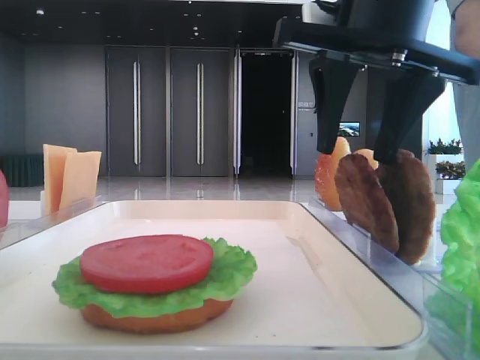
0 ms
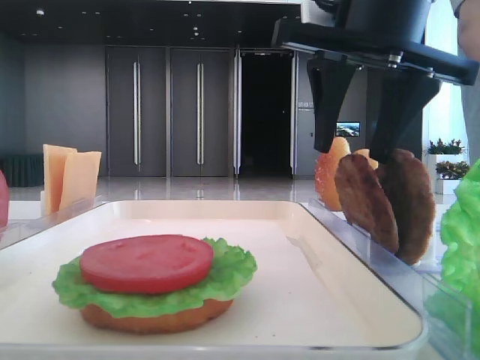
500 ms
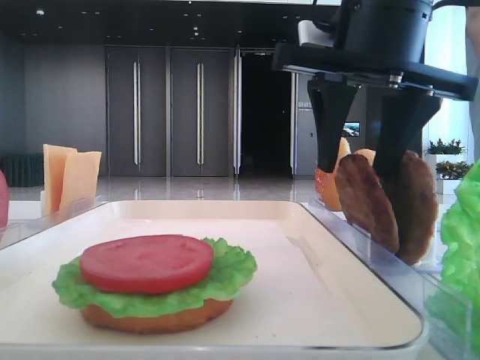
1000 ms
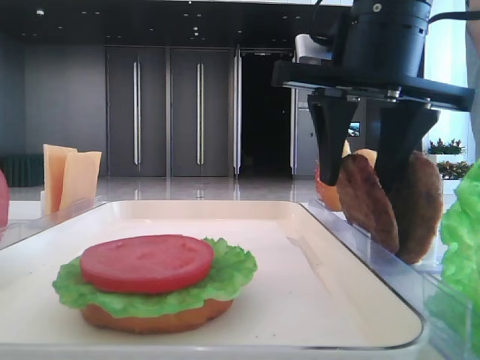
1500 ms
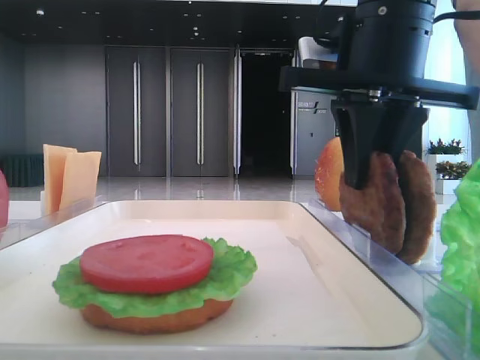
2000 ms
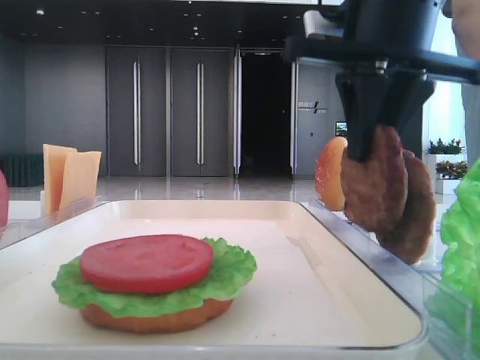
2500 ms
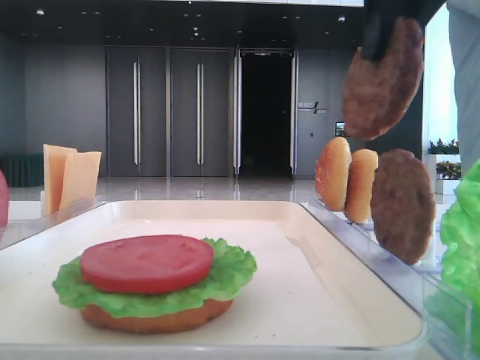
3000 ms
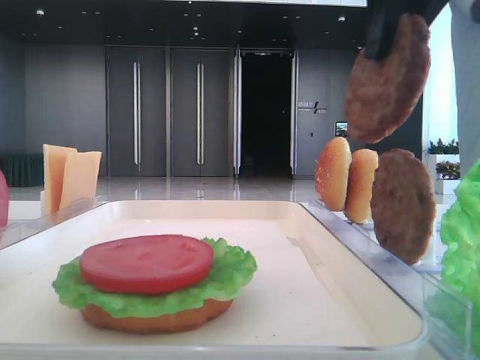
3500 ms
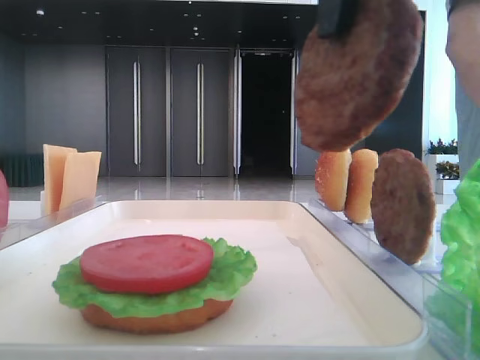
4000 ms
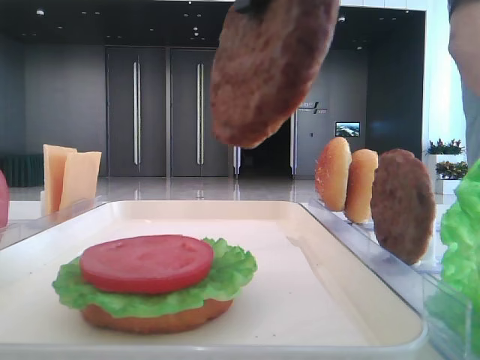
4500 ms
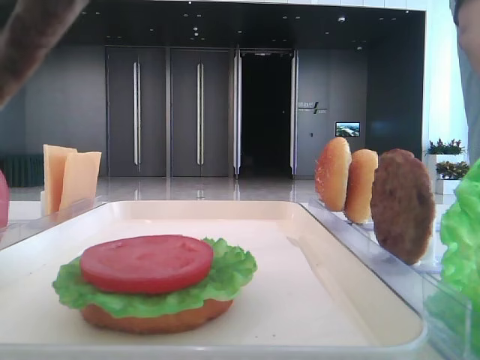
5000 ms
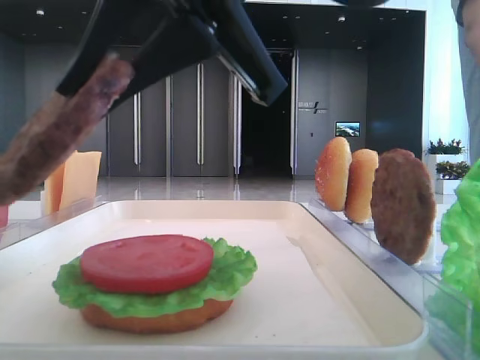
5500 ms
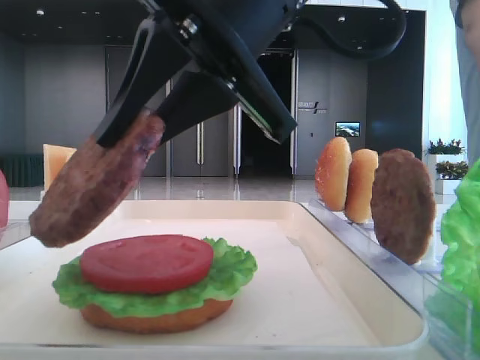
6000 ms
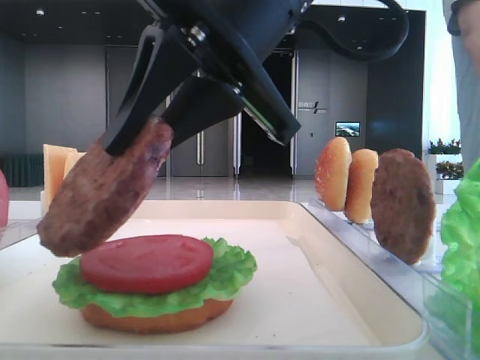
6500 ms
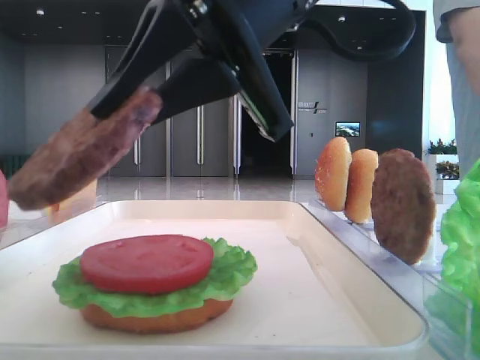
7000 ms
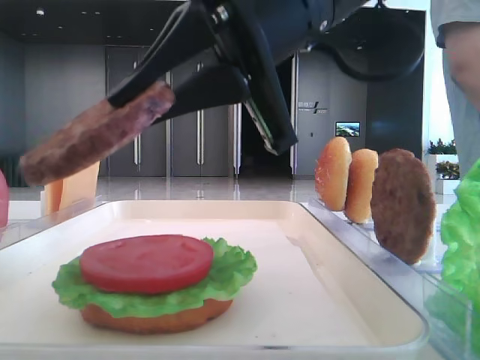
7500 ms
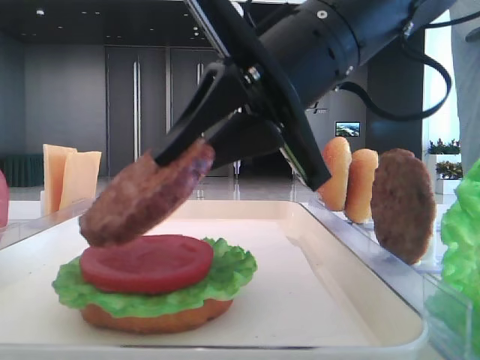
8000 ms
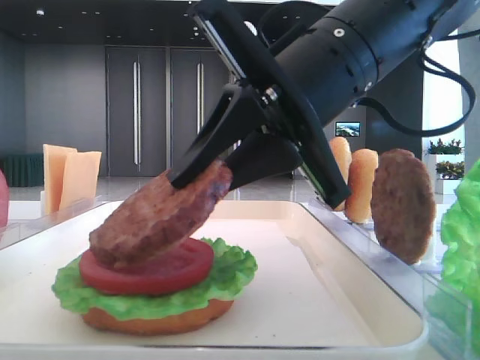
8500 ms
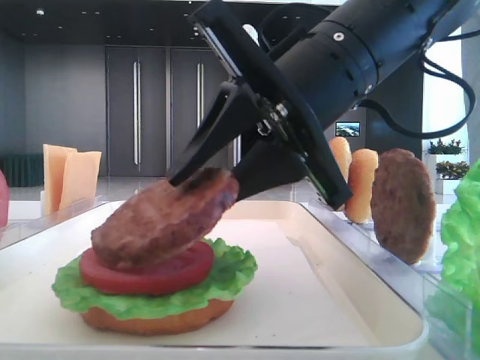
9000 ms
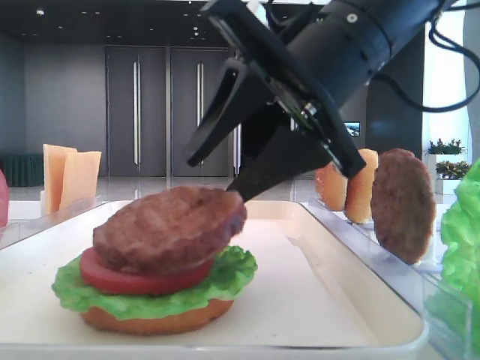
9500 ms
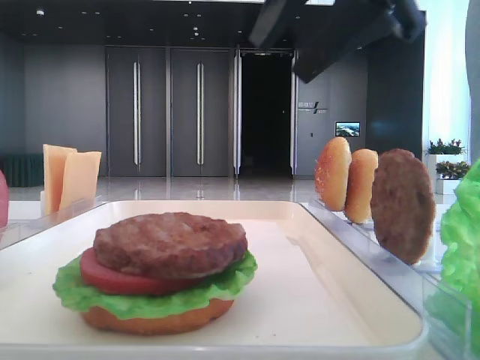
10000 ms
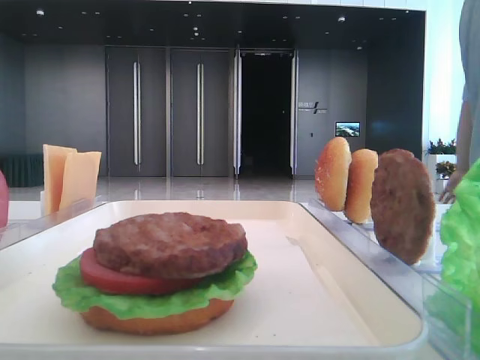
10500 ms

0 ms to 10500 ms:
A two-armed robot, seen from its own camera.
Step, 0 ms to 2000 ms: Grab the patty with the right hand.
Step, 2500 ms to 9500 ms: Place the patty on the tomato slice with the right hand.
0 ms to 2000 ms: The right gripper closes.
2000 ms to 4000 ms: The right gripper is displaced backward and upward by roughly 15 cm.
4000 ms to 6500 ms: The right gripper moves downward and to the left, about 10 cm.
6500 ms to 8500 ms: The right gripper shifts by some 5 cm.
8500 ms to 10500 ms: The right gripper is displaced to the right and upward by approximately 20 cm, and opens.

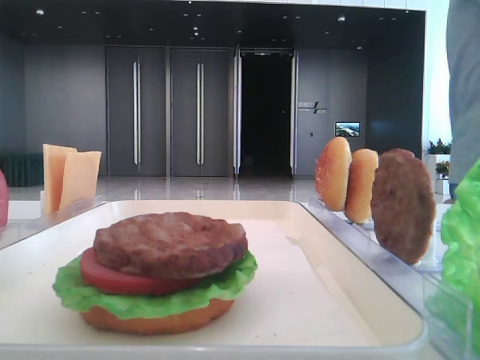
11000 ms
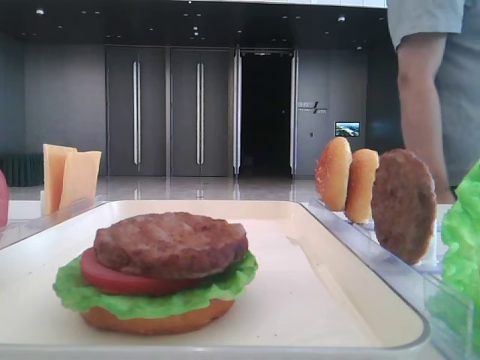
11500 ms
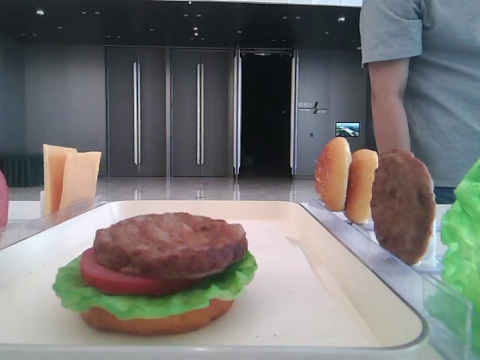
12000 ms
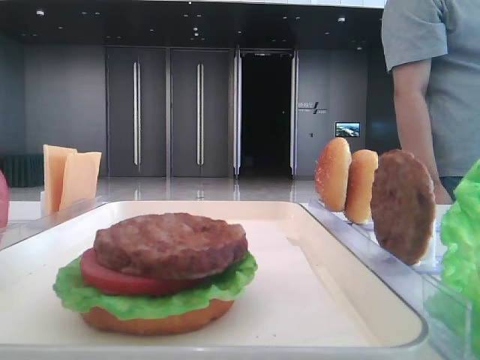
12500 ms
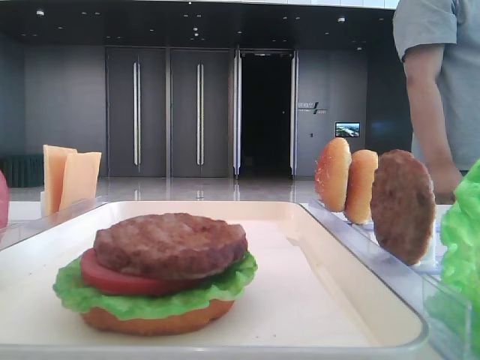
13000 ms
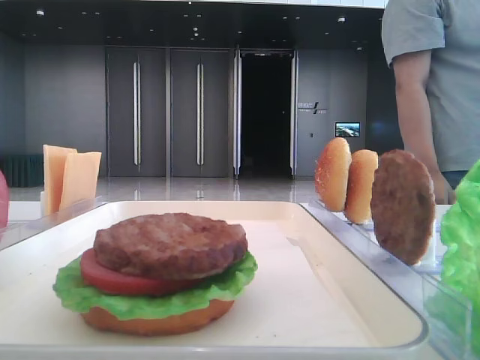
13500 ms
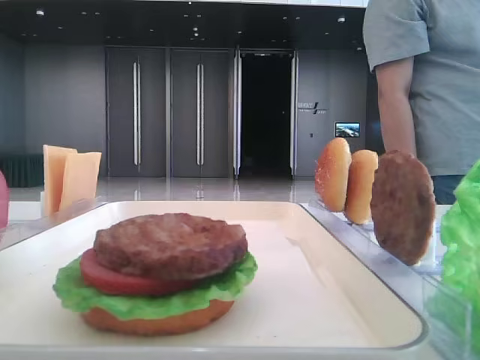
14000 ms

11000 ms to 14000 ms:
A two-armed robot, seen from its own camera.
11000 ms to 12500 ms: The right gripper heads backward, covering approximately 15 cm.
12500 ms to 14000 ms: The right gripper heads backward, covering roughly 5 cm.

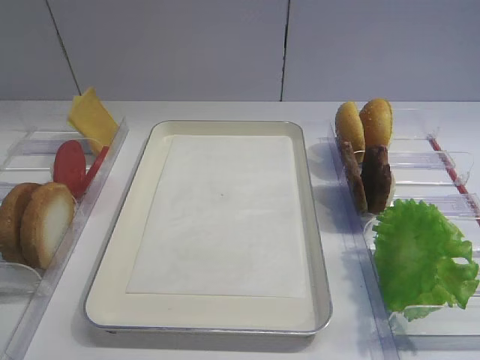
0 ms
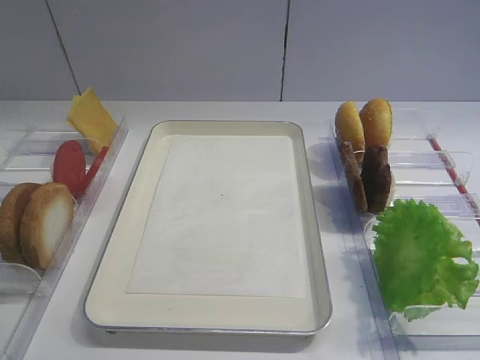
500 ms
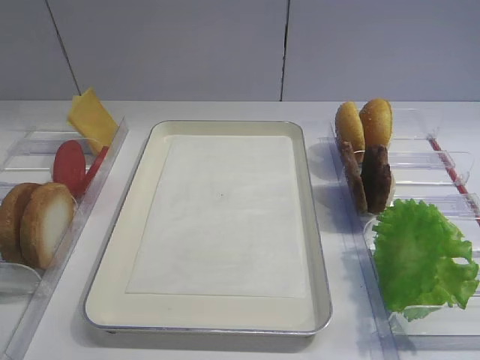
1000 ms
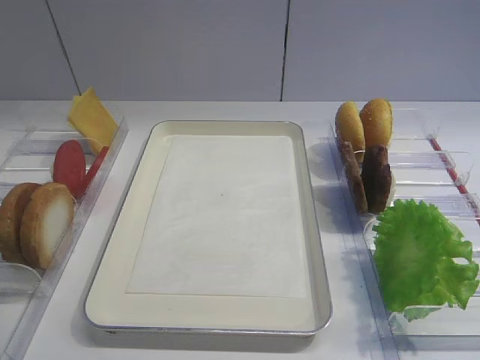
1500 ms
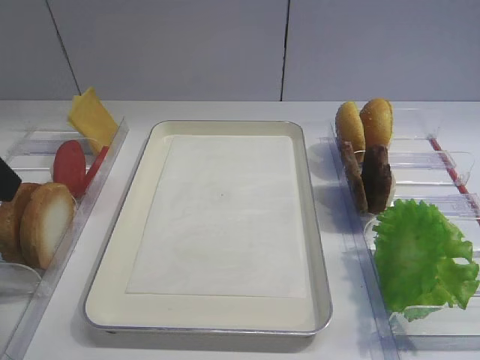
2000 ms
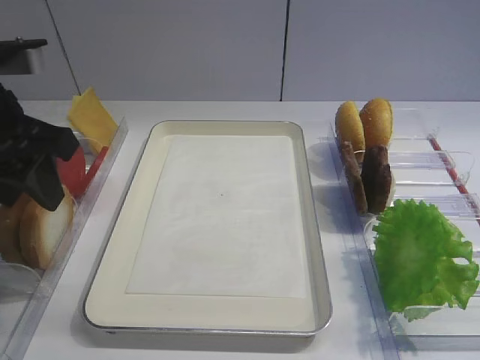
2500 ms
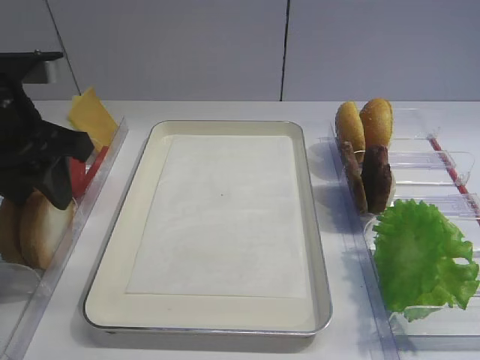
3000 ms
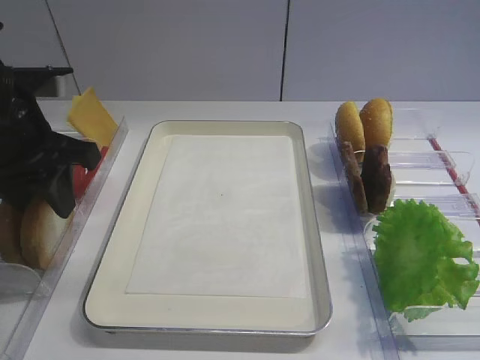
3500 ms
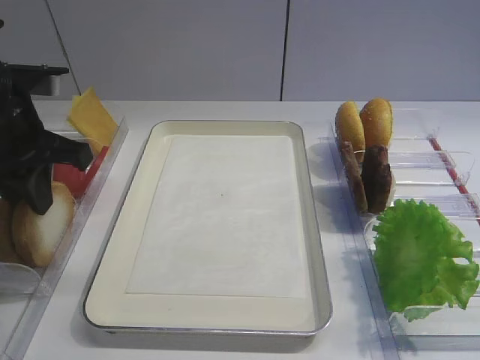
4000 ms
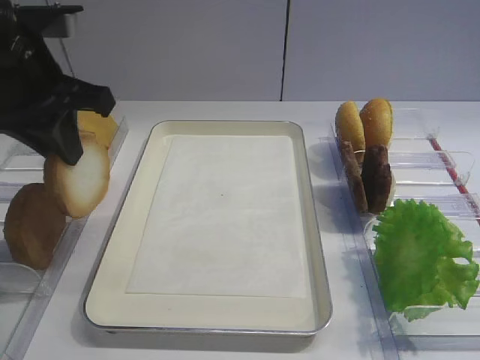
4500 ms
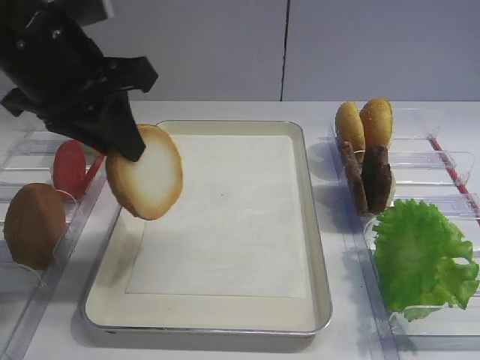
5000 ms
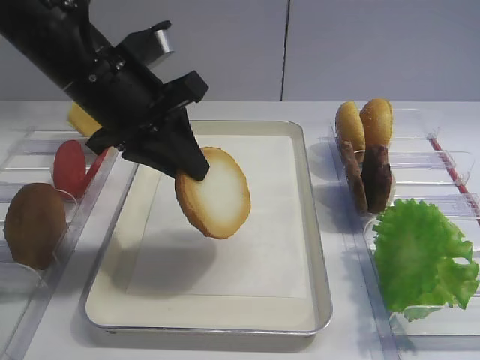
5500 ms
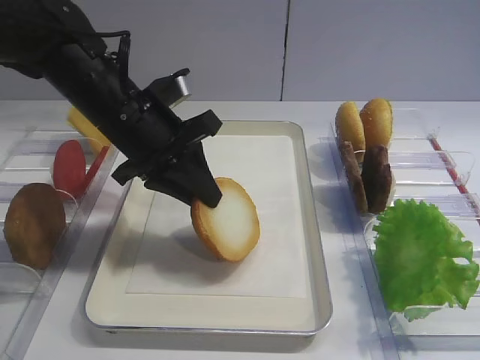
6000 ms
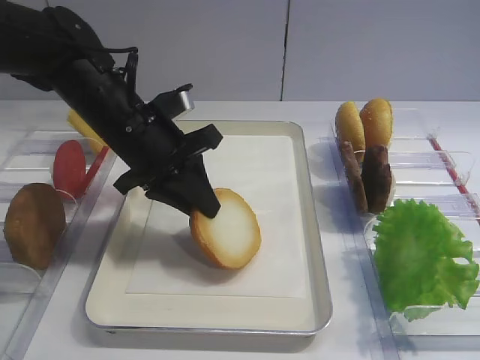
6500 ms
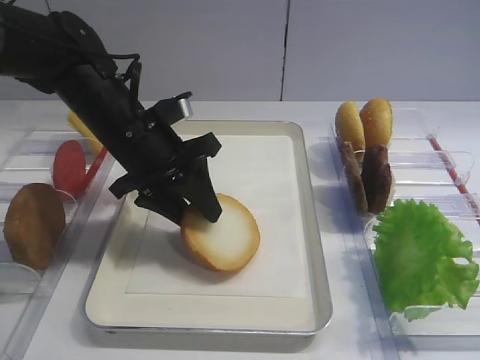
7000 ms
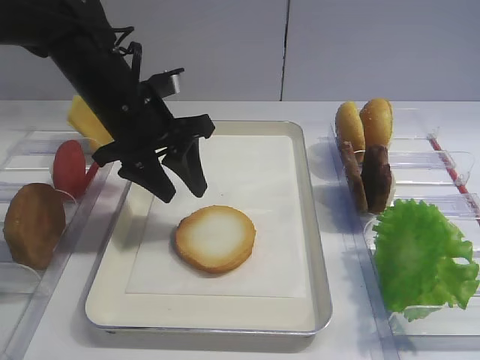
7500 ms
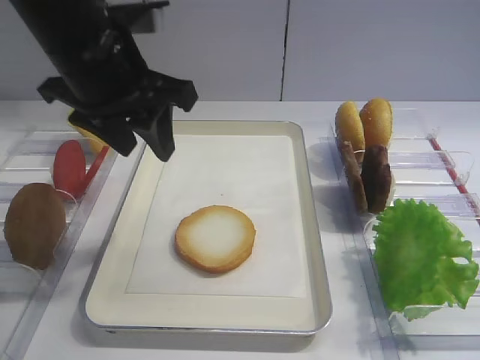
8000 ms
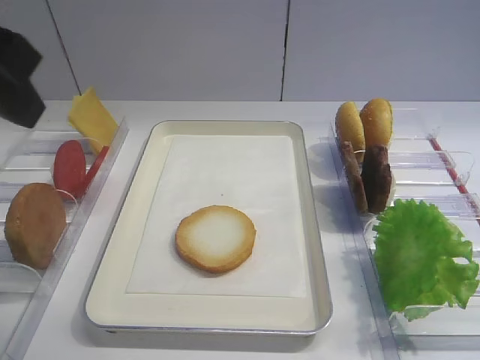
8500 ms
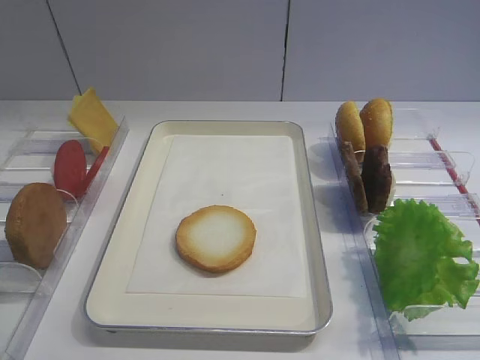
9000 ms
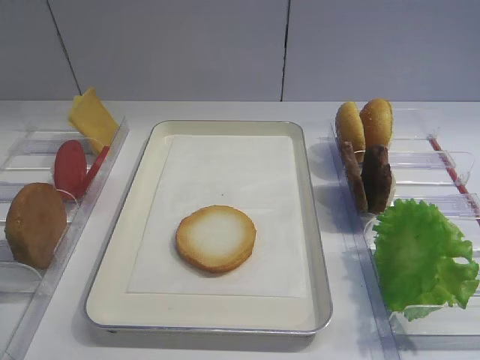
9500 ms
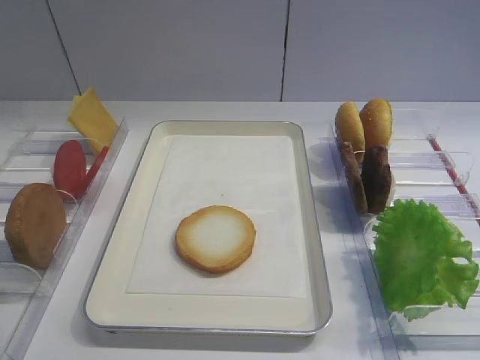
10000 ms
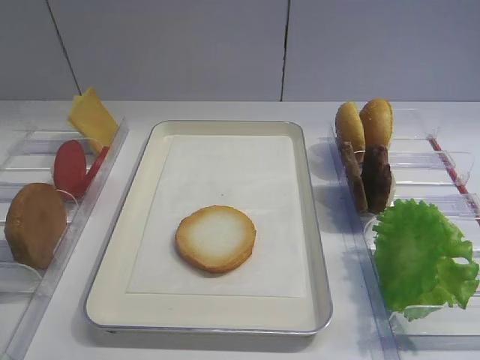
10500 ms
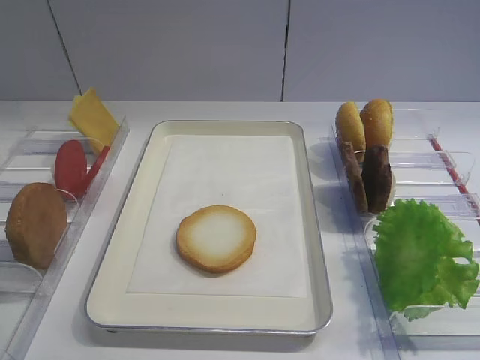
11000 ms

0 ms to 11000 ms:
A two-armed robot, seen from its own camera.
Step, 0 ms to 4000 ms: Pick up the bread slice with the left gripper.
Step, 4500 ms to 7000 ms: Place the bread slice on the tray with the left gripper.
2000 ms to 3500 ms: The left gripper travels forward and downward by about 10 cm.
3500 ms to 5500 ms: The left gripper heads to the right, covering roughly 10 cm, and closes up.
5500 ms to 7500 ms: The left gripper is displaced downward by roughly 5 cm, and opens up.
7500 ms to 9000 ms: The left gripper goes some 35 cm backward, upward and to the left.

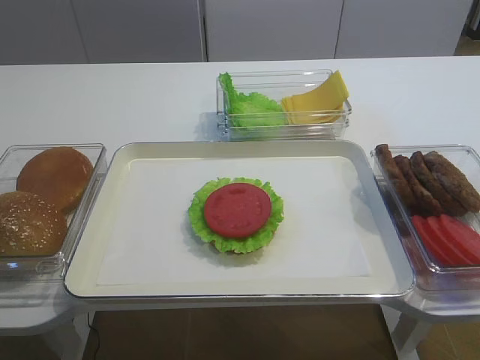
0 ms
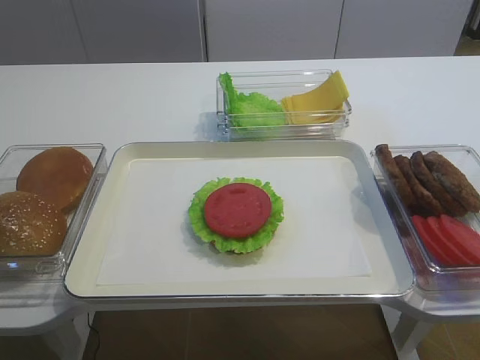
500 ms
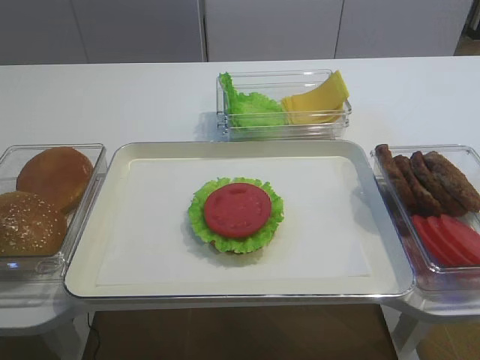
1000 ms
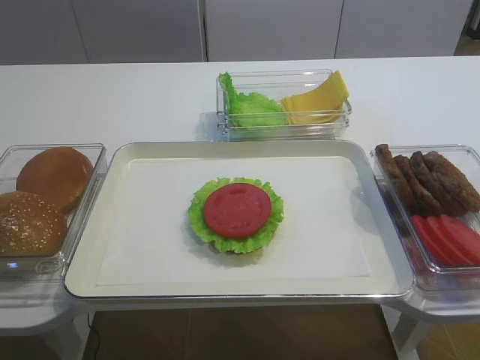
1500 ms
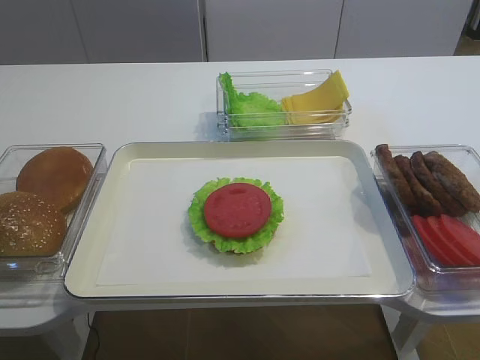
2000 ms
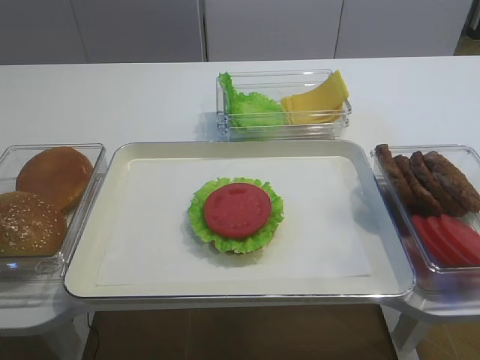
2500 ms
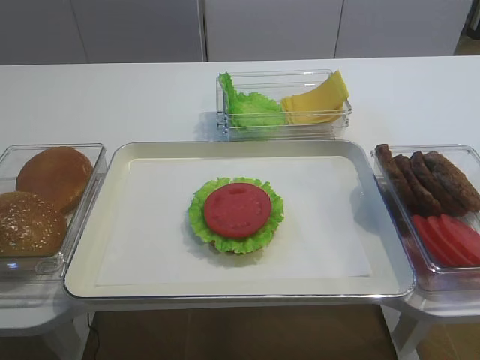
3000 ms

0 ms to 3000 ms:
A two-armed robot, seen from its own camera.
1500 ms to 3000 ms: The right gripper travels forward and upward by roughly 20 cm.
